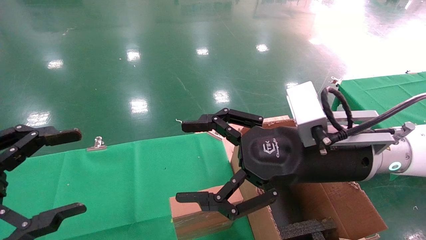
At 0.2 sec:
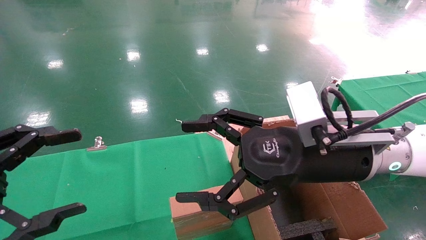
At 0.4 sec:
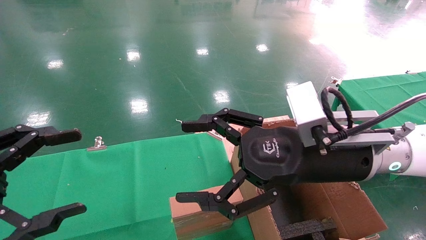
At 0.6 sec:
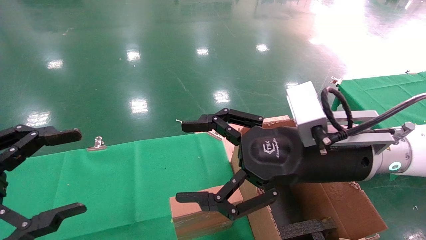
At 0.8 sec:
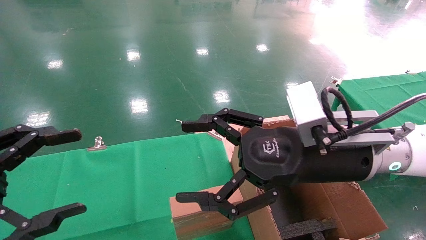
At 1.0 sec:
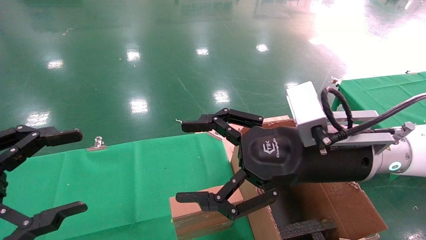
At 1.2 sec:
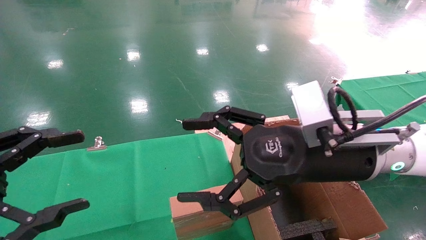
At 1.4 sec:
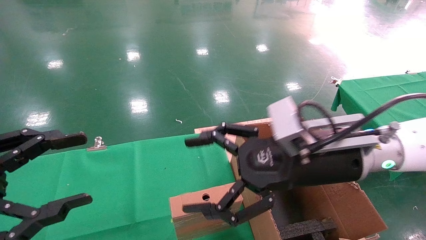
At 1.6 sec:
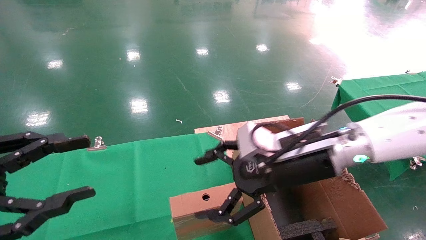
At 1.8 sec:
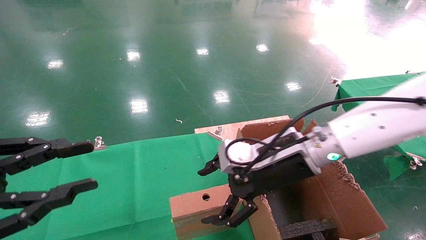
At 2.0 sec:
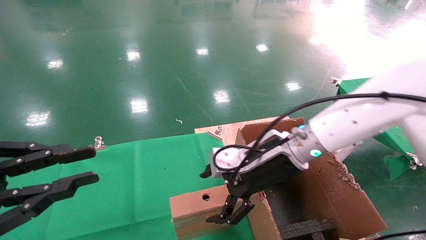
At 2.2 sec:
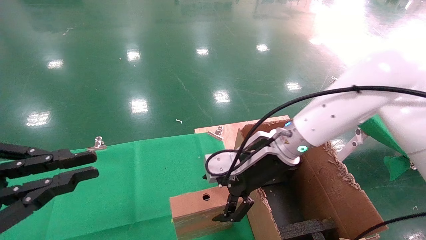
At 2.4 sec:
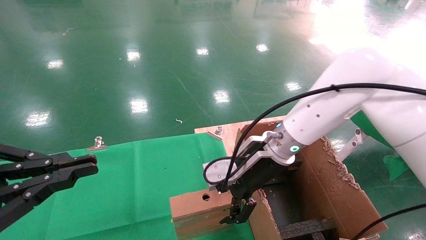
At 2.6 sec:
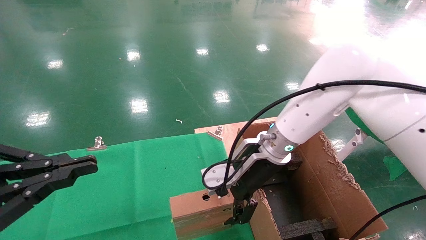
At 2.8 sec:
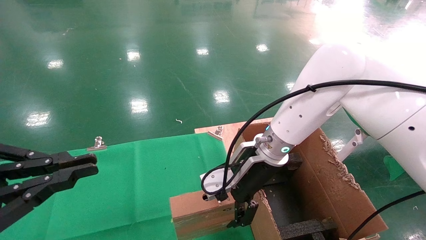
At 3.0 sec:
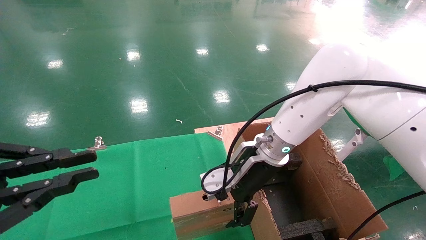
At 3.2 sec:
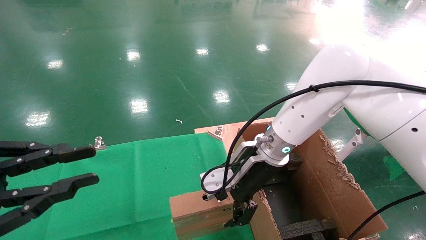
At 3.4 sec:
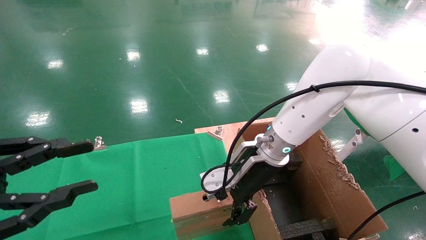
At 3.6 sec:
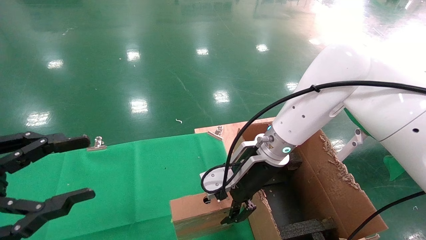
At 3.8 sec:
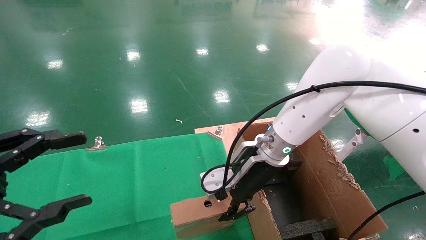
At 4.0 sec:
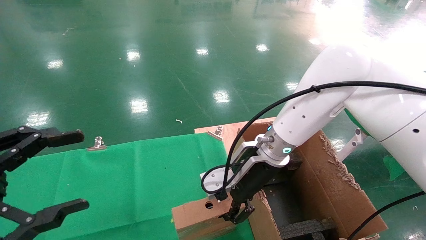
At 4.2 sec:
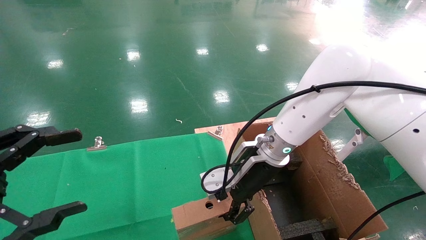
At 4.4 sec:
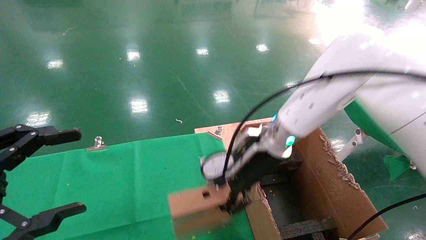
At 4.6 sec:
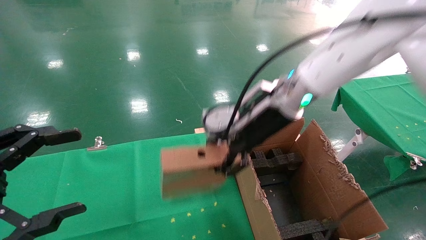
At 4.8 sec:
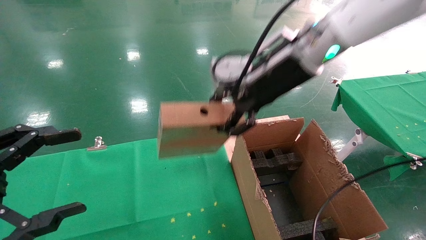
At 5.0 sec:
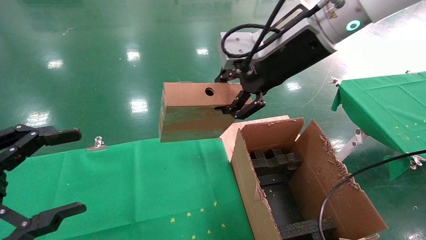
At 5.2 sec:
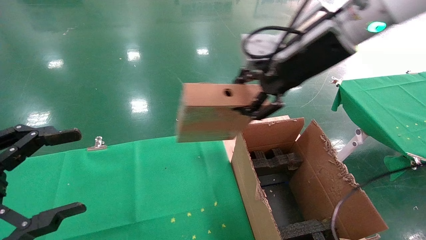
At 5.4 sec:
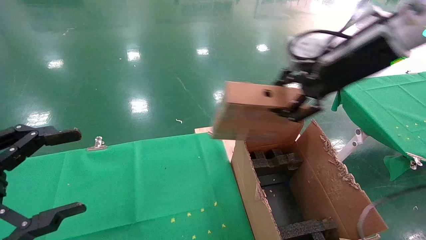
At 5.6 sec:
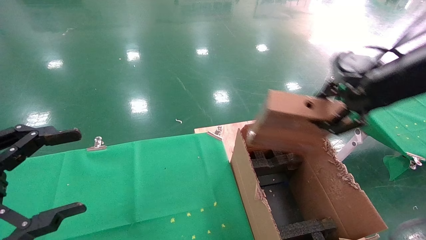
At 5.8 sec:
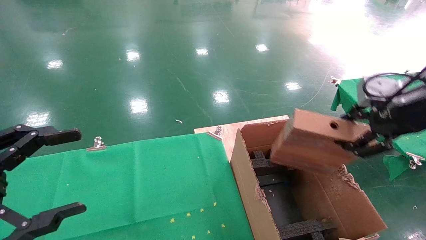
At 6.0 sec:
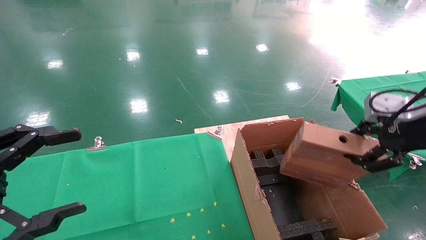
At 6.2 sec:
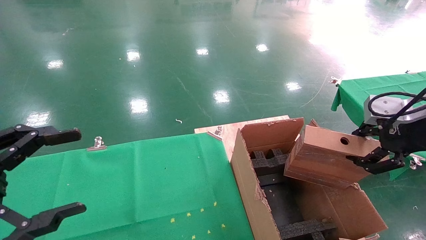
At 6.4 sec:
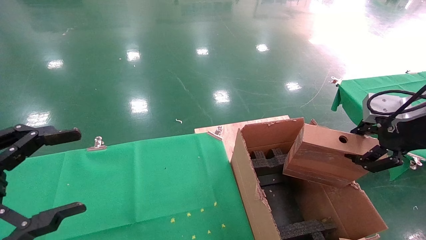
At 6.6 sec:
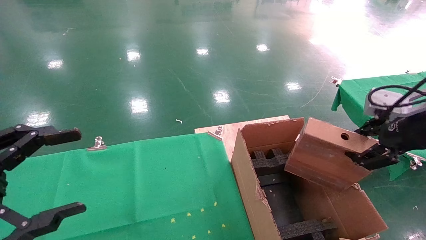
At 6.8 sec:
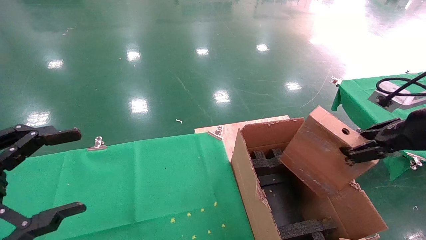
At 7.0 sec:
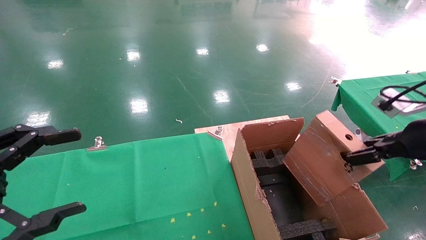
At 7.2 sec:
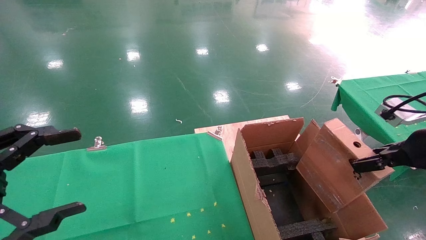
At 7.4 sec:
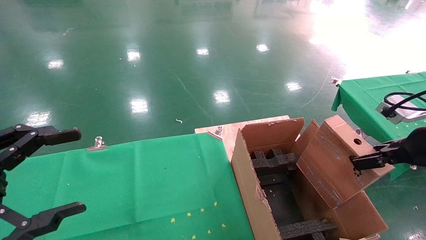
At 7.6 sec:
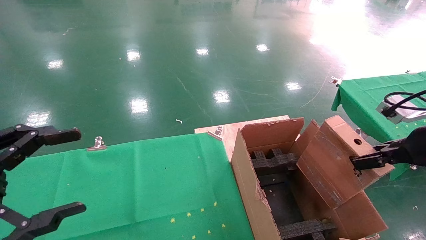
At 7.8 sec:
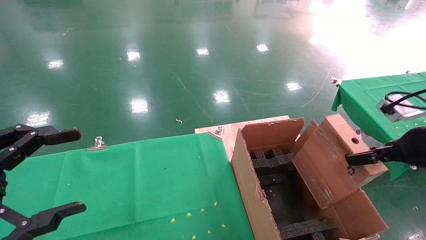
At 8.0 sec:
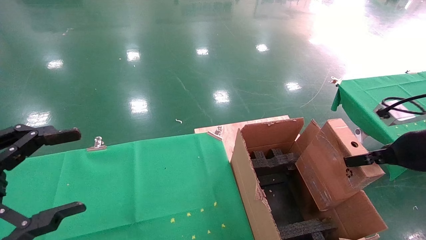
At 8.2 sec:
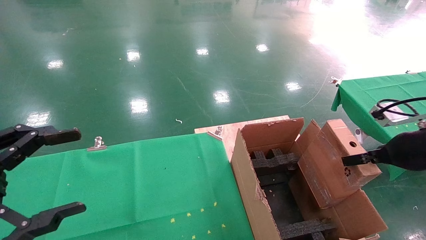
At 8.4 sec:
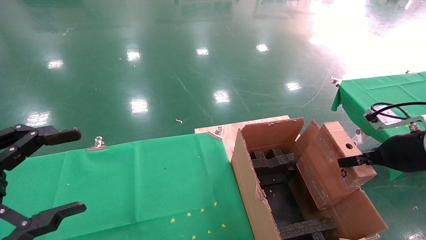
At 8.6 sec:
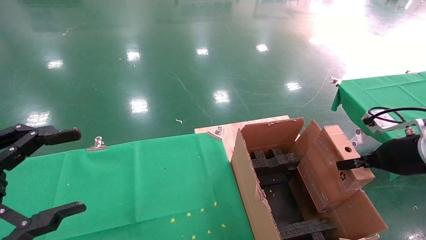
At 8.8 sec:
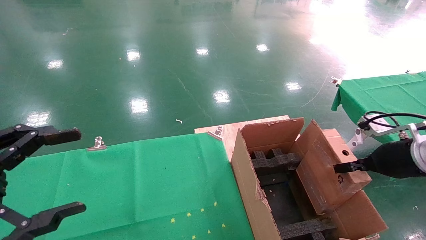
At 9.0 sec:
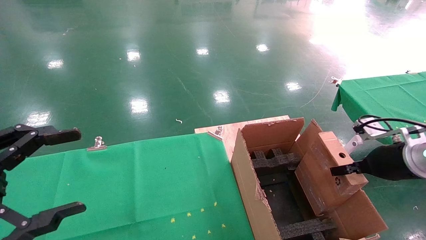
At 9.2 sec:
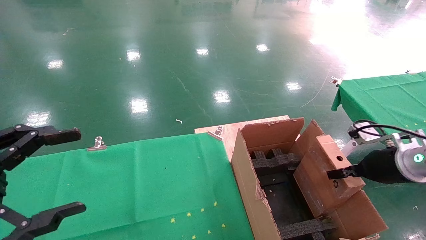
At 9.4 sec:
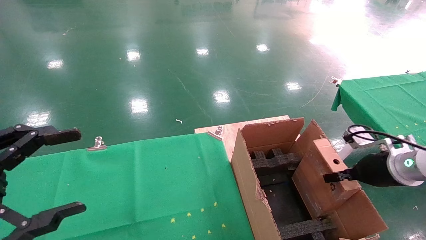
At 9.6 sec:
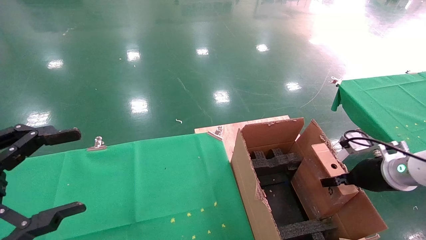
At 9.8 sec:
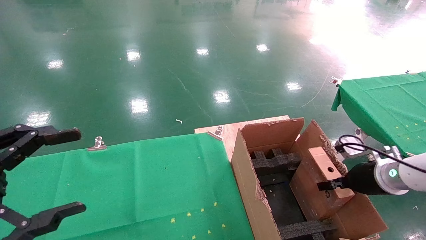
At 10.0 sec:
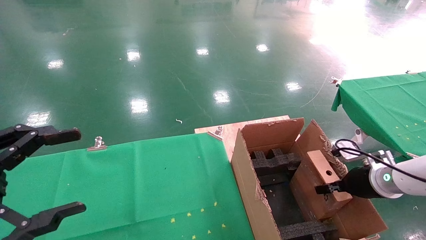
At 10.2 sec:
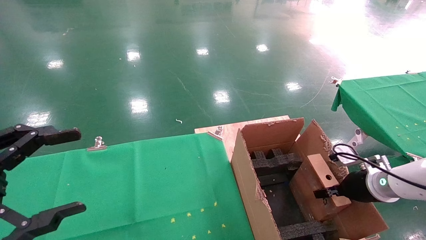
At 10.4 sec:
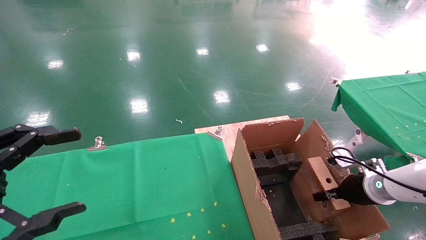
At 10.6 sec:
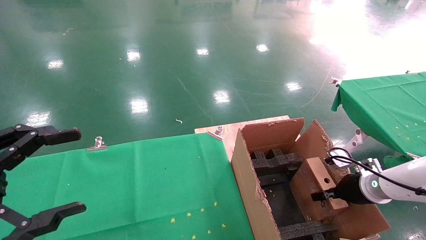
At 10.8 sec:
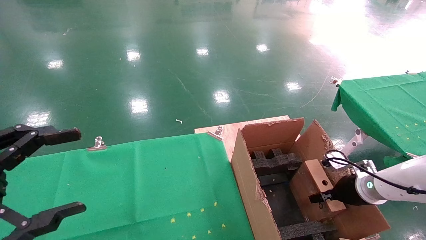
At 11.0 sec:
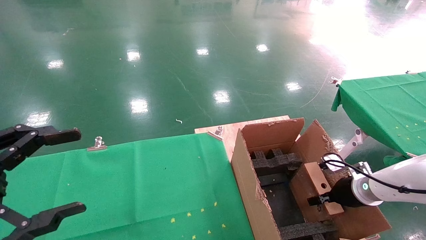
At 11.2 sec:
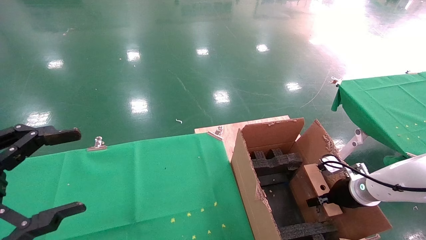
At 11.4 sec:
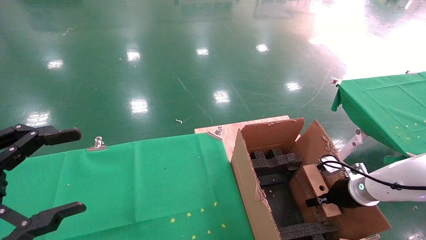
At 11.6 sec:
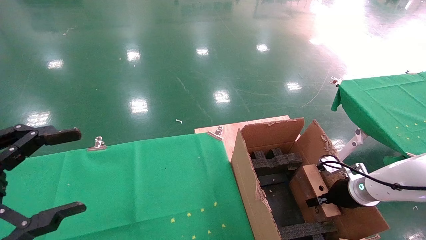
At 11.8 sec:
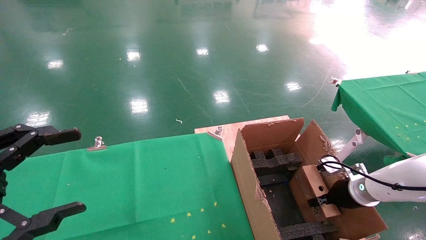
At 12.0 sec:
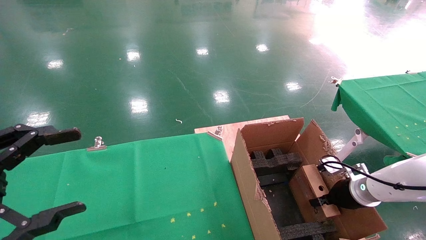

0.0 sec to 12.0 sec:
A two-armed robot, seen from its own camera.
Task of the whole recording: using a robotic arm to pick up a cardboard box and palace it the carton.
Step, 1.4 sec to 3.8 sec: Pick up the mouse and the power cord paper box.
0.0 sec to 1.6 sec: The right gripper moves some 5 cm.
1.6 sec to 3.0 sec: The right gripper moves forward, approximately 5 cm. Meanwhile the left gripper closes its fingers.
3.0 sec to 4.4 sec: The right gripper closes its fingers. Meanwhile the left gripper opens its fingers.
4.4 sec to 6.0 sec: The right gripper goes some 30 cm to the right and backward.
6.0 sec to 7.6 sec: The right gripper goes about 5 cm downward.
7.6 sec to 9.0 sec: The right gripper heads downward and forward, covering about 10 cm.
9.0 sec to 10.4 sec: The right gripper travels downward by approximately 10 cm.
10.4 sec to 12.0 sec: The grippers stay close to where they were, moving slightly.

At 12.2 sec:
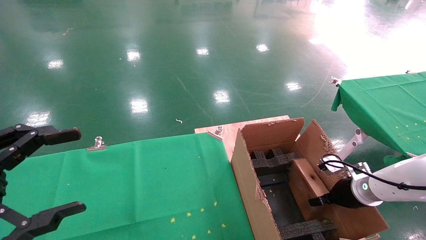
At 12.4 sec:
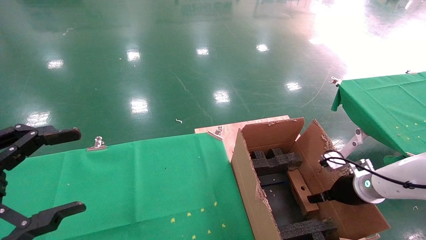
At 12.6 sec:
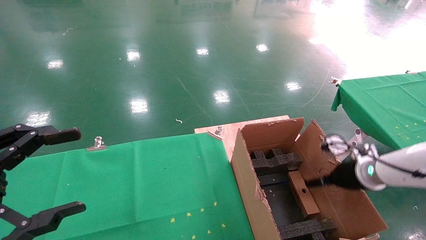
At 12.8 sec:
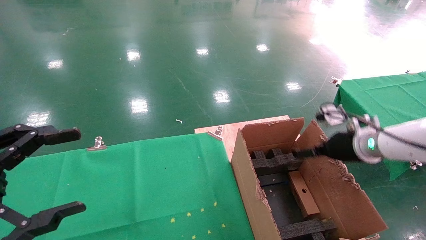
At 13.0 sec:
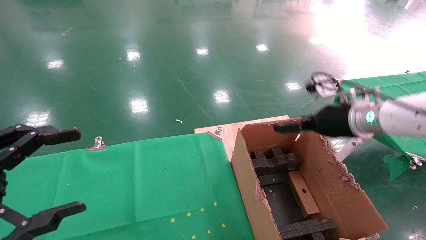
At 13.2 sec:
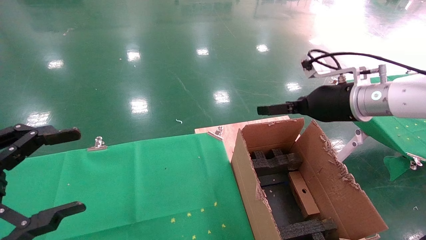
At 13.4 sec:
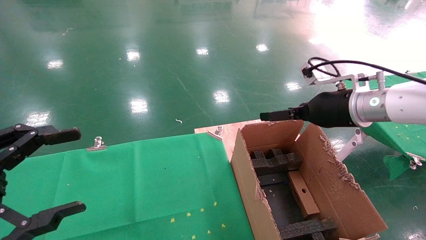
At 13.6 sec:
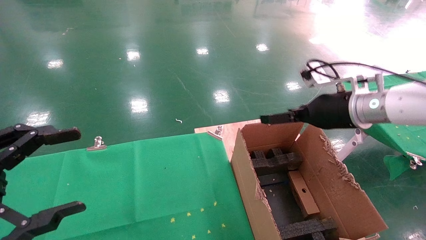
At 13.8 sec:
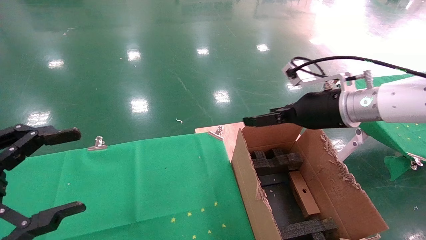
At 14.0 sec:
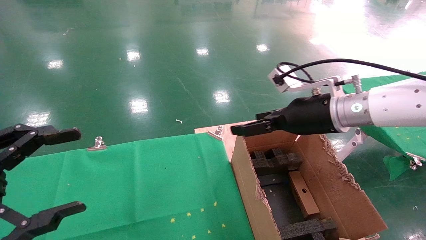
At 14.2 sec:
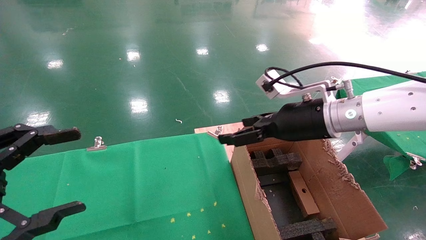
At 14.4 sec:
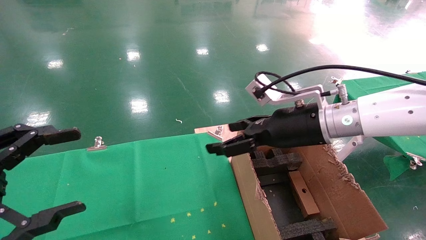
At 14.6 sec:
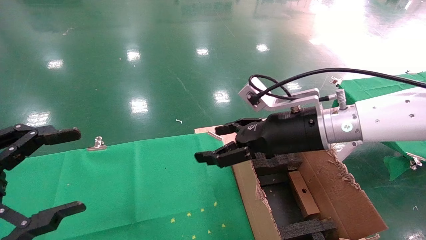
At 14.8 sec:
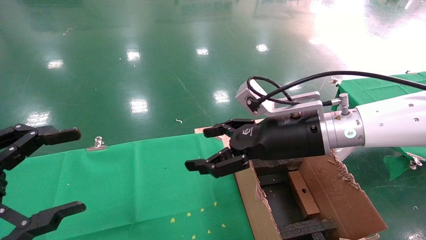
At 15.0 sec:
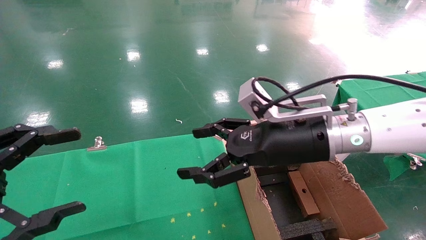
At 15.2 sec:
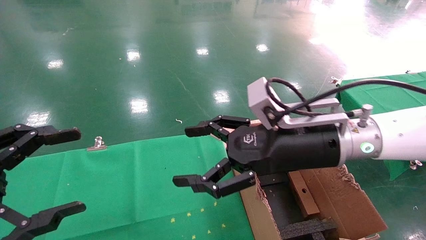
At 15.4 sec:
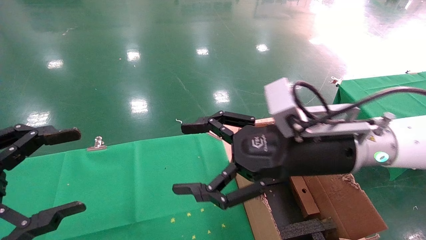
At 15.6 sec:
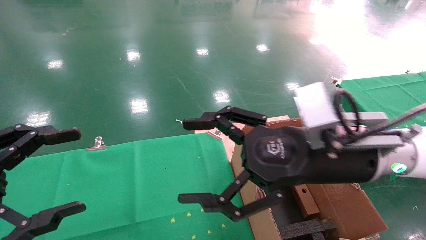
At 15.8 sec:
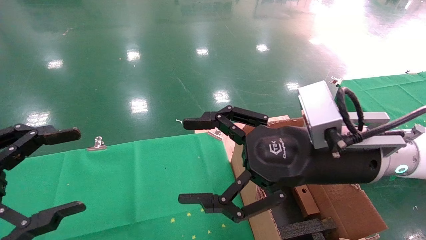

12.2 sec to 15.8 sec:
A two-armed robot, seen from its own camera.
Task of the whole recording: using a robotic arm to pick up a cardboard box and palace it the carton.
12.2 sec to 14.0 sec: The right gripper moves upward and to the left, approximately 25 cm, and opens up.
14.0 sec to 15.8 sec: The right gripper is displaced backward and to the left by roughly 10 cm.
